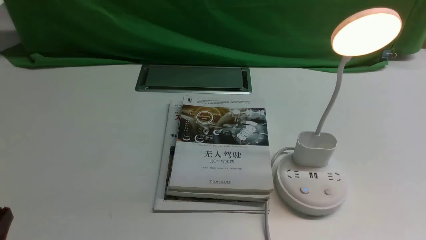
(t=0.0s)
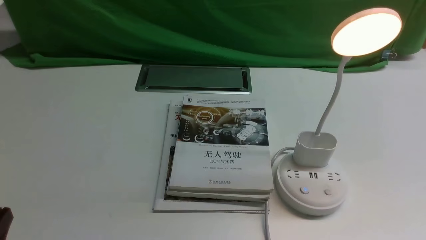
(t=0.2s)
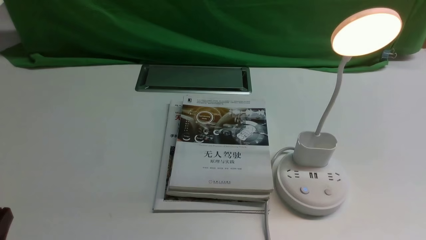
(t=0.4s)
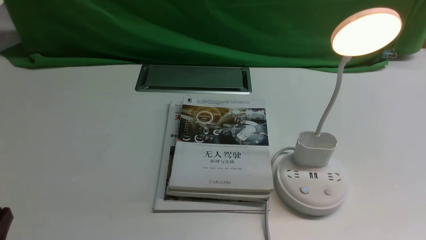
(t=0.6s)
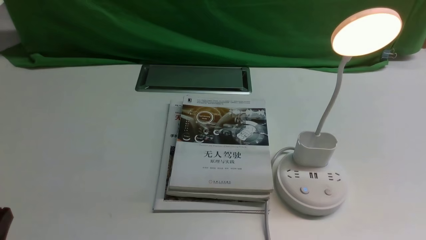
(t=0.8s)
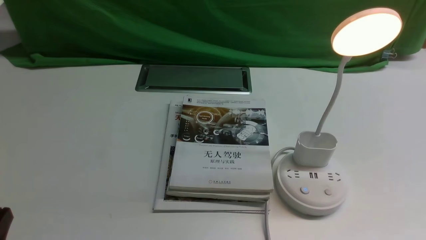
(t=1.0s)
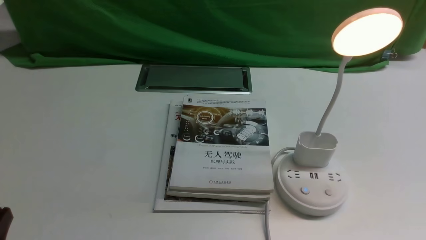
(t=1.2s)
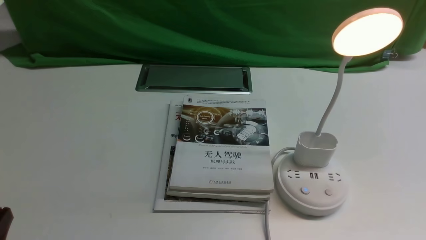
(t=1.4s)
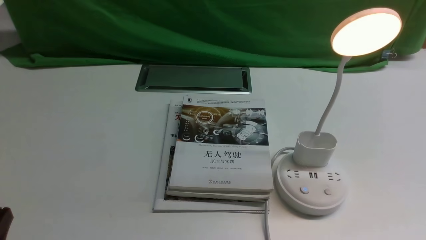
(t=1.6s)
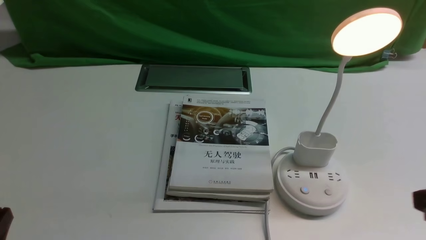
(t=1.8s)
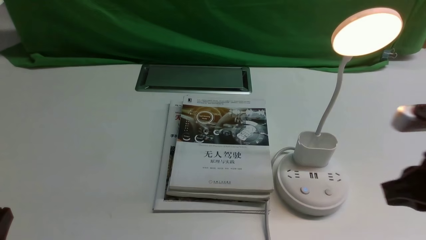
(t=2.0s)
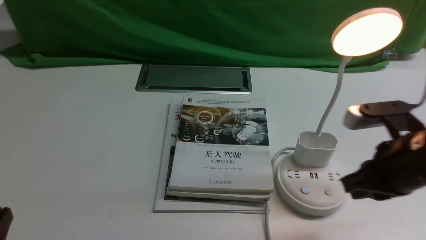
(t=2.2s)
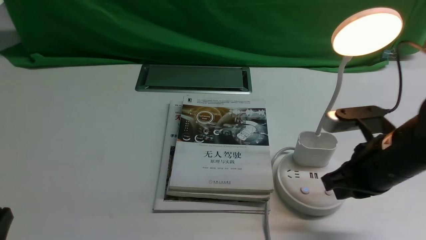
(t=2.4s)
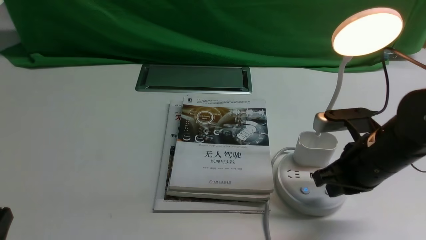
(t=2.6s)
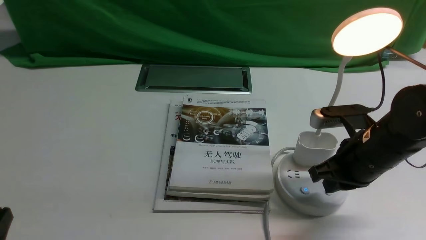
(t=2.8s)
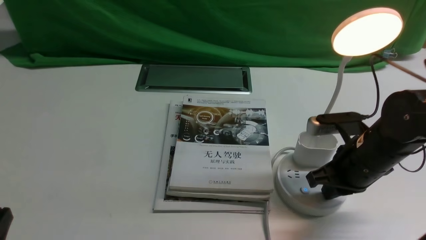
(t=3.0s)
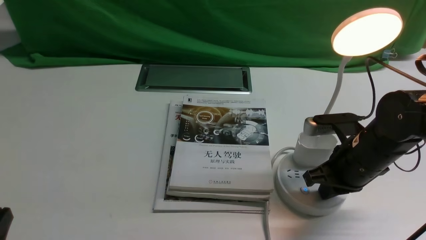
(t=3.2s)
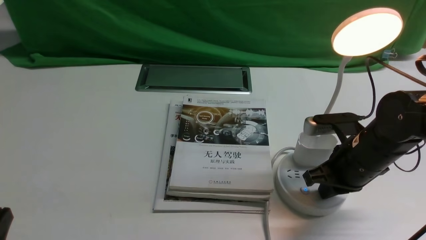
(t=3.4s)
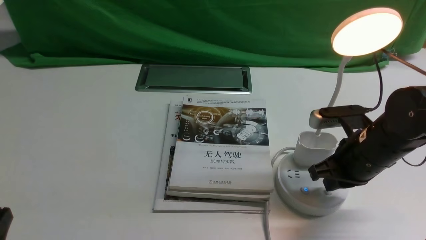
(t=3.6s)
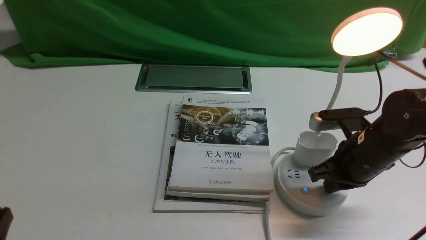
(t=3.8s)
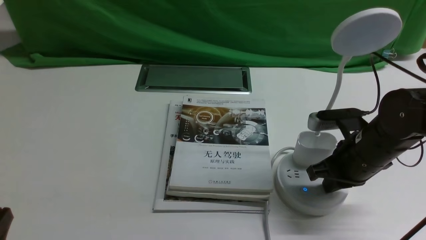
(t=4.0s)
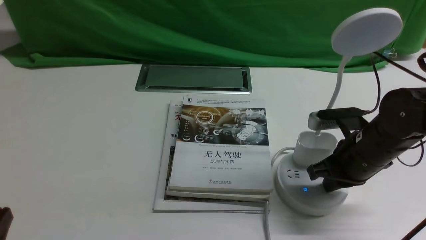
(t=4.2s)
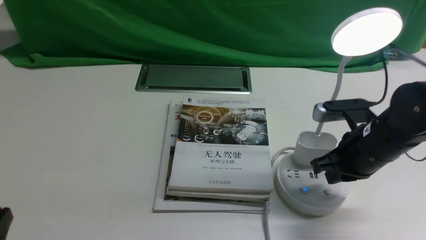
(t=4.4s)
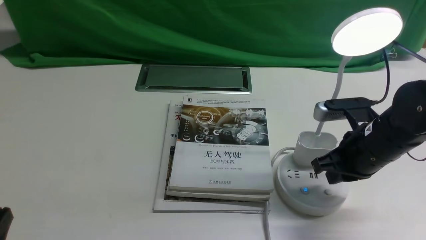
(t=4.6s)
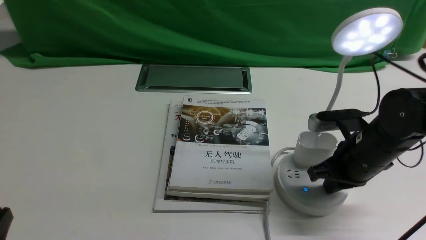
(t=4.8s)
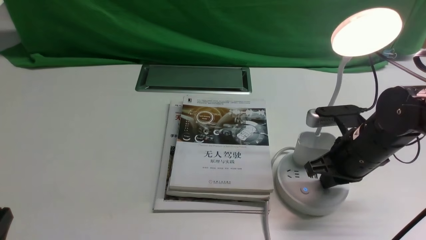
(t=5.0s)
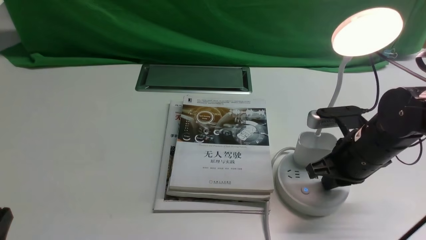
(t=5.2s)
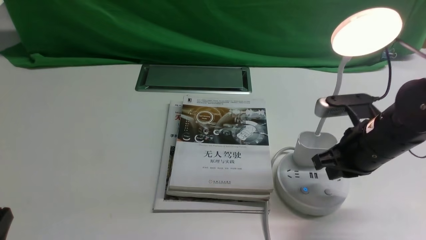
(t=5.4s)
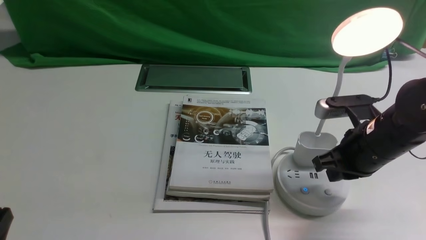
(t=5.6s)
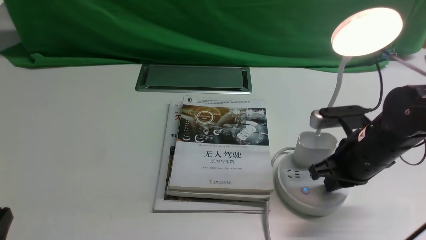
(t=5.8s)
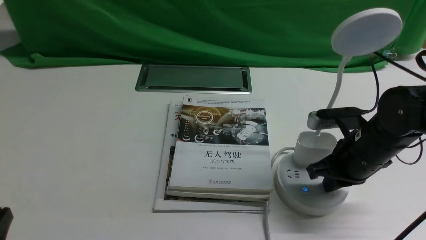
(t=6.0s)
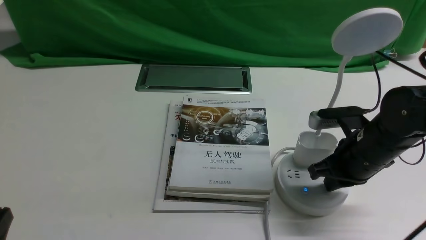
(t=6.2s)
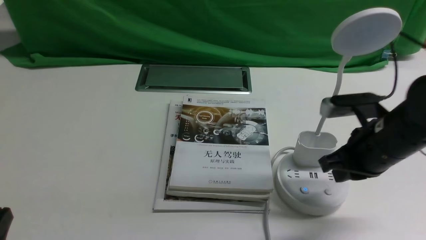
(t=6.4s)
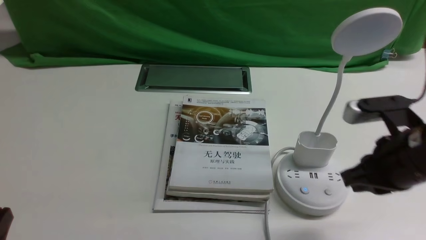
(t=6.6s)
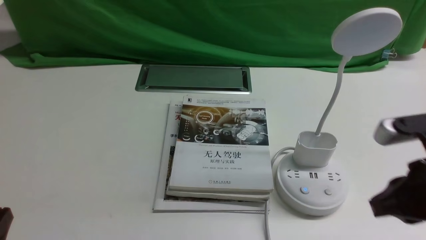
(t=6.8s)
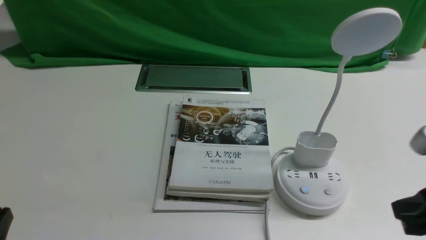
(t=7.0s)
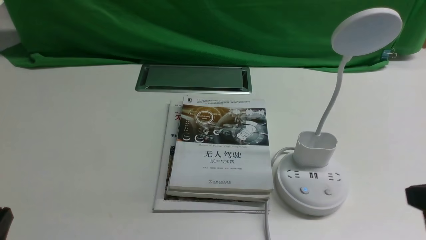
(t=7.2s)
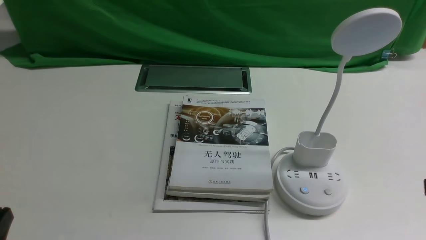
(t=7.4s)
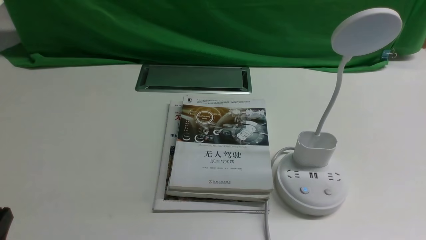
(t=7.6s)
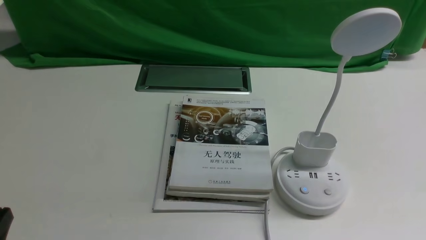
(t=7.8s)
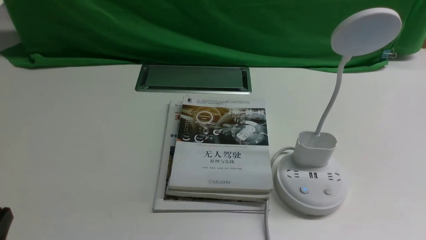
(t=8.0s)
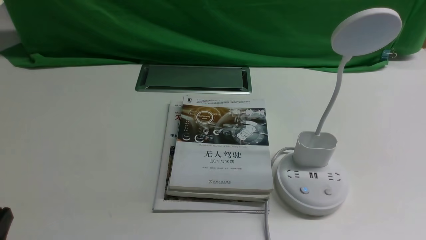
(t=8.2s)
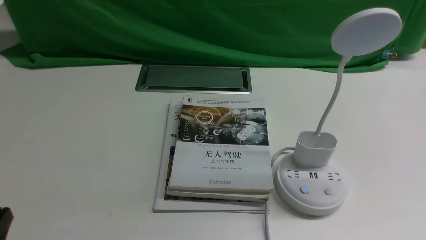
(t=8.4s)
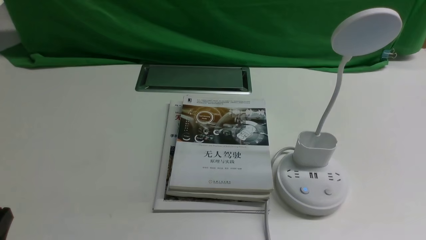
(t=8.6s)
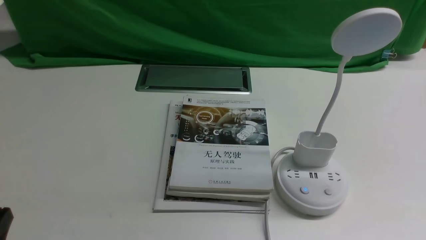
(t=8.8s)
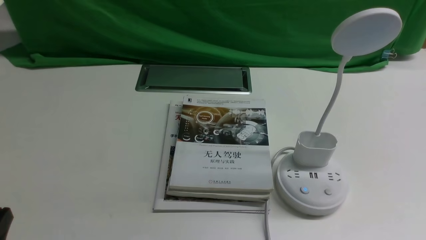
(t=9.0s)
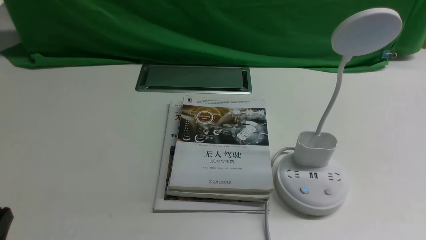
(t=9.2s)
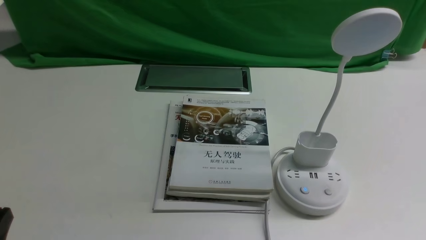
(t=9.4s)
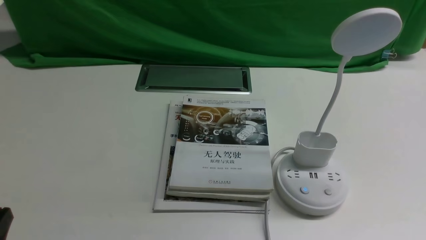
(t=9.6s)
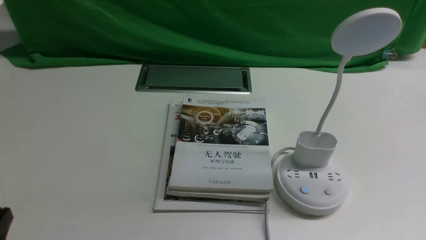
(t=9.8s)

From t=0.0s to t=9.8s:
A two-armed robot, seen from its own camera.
Task of the whole recording: turn off the desk lamp on the white desktop by hand.
Step, from t=0.0s to t=6.2s: use the right arm to press the button switch on the lamp holder.
From t=1.4s to t=2.8s: The right gripper travels forward and to the left by roughly 25 cm, and closes its fingers.
From t=2.8s to t=5.6s: The grippers make only small movements.
From t=5.6s to t=7.0s: The right gripper travels backward and upward by roughly 15 cm.
From t=7.0s to t=8.4s: The right gripper heads backward, downward and to the right, covering approximately 15 cm.
